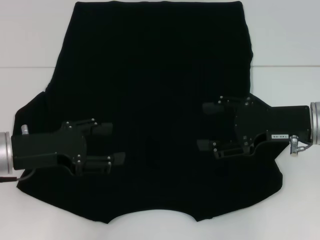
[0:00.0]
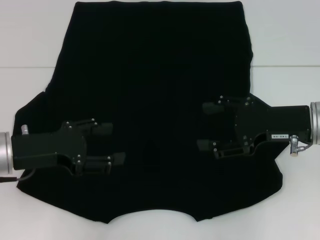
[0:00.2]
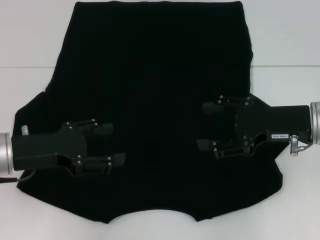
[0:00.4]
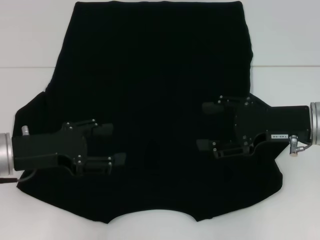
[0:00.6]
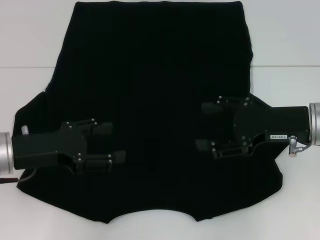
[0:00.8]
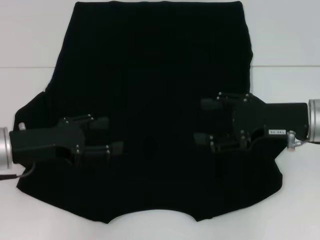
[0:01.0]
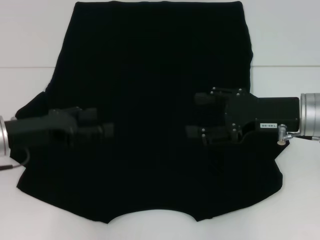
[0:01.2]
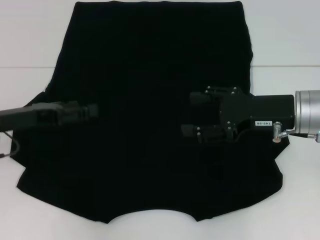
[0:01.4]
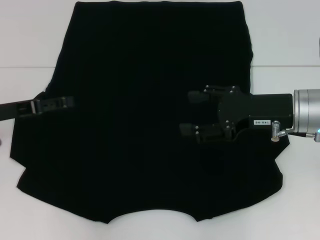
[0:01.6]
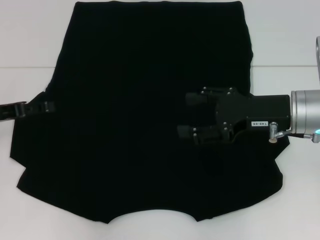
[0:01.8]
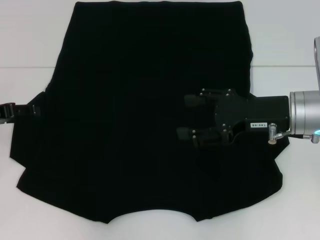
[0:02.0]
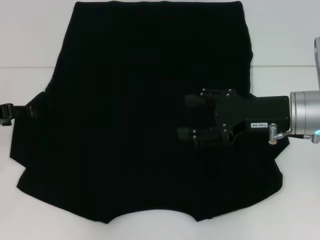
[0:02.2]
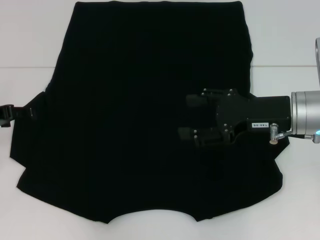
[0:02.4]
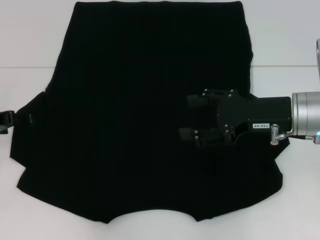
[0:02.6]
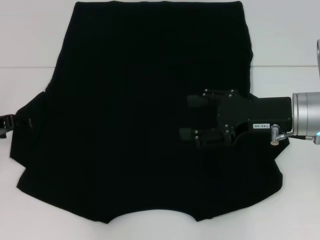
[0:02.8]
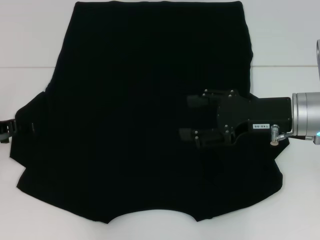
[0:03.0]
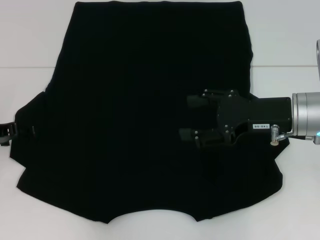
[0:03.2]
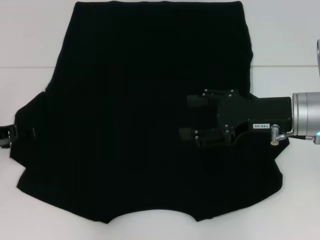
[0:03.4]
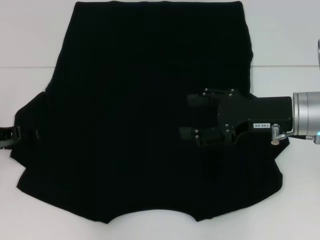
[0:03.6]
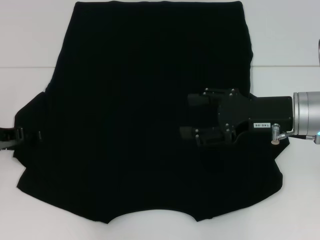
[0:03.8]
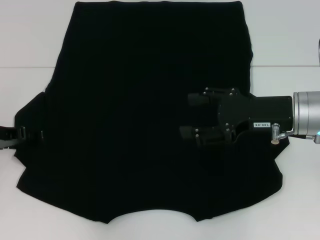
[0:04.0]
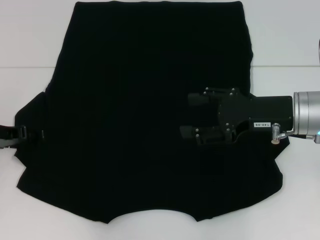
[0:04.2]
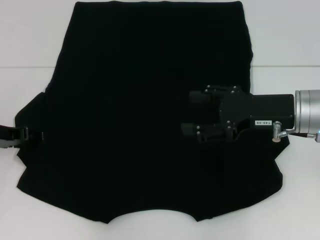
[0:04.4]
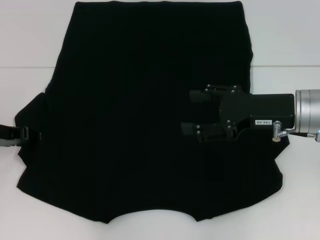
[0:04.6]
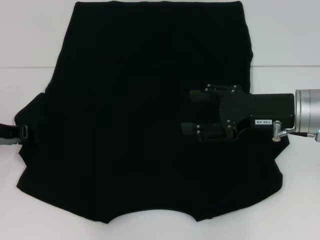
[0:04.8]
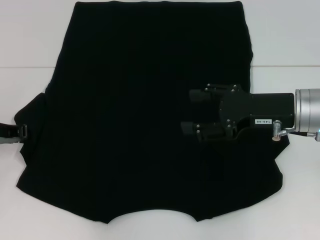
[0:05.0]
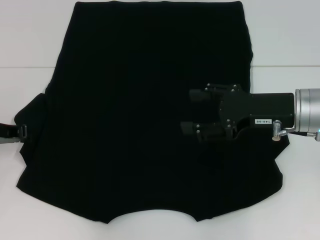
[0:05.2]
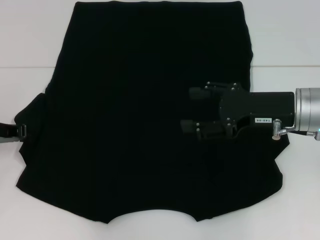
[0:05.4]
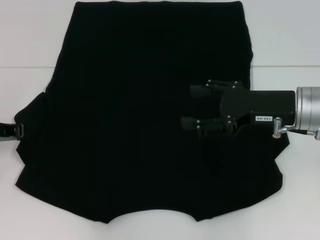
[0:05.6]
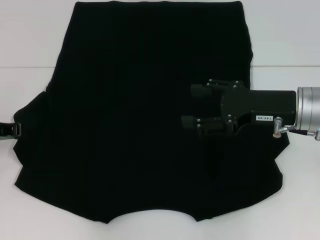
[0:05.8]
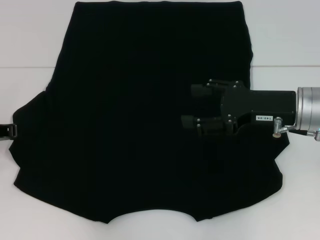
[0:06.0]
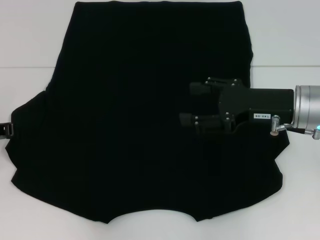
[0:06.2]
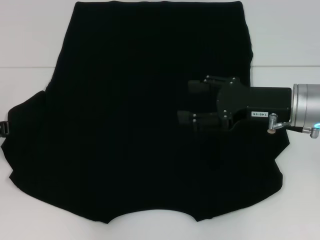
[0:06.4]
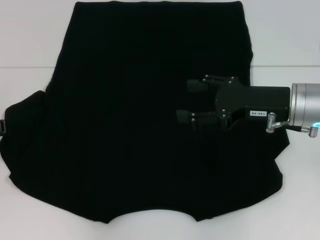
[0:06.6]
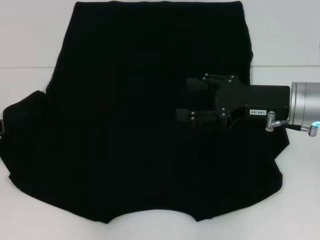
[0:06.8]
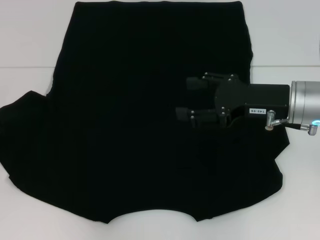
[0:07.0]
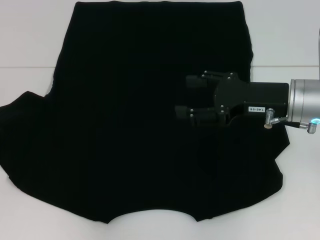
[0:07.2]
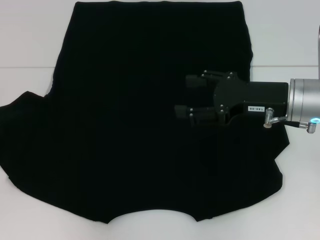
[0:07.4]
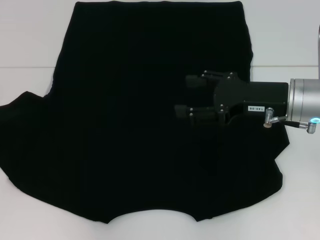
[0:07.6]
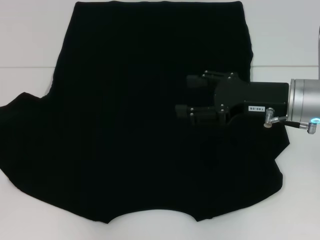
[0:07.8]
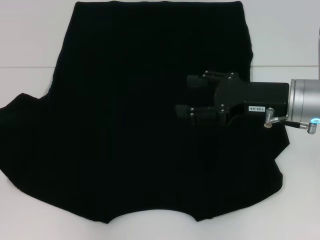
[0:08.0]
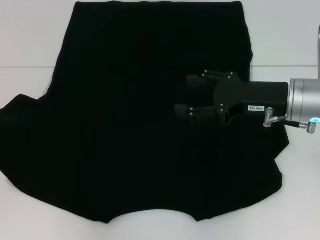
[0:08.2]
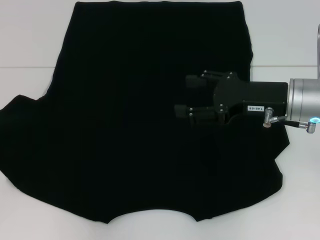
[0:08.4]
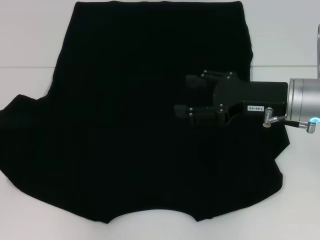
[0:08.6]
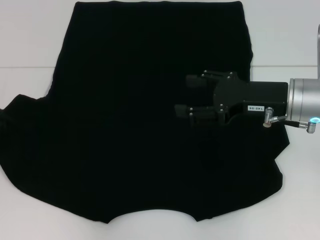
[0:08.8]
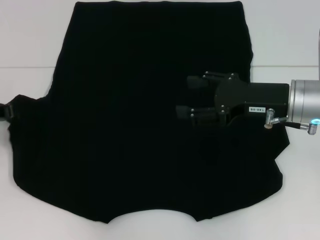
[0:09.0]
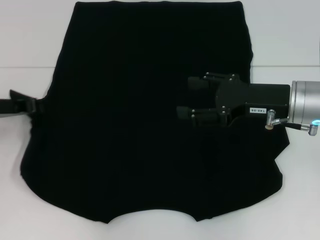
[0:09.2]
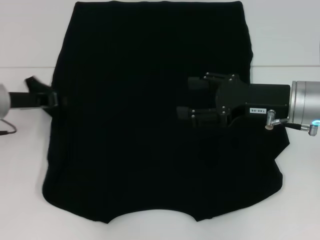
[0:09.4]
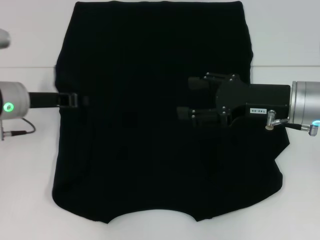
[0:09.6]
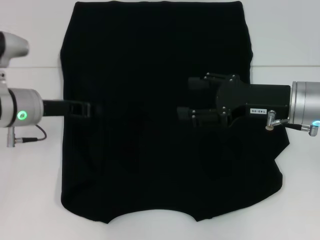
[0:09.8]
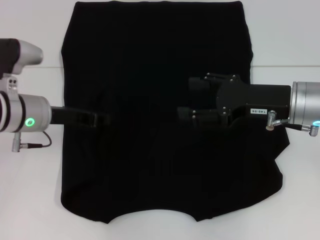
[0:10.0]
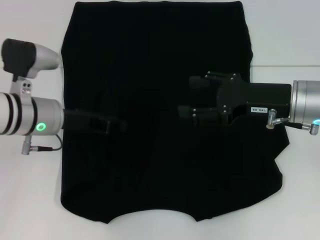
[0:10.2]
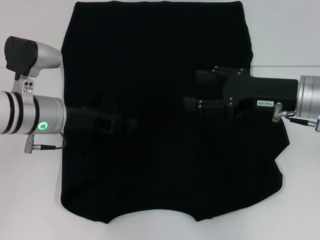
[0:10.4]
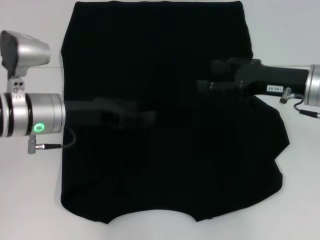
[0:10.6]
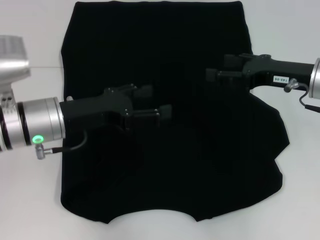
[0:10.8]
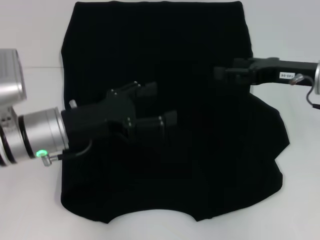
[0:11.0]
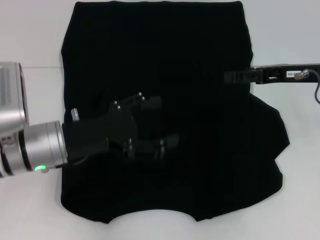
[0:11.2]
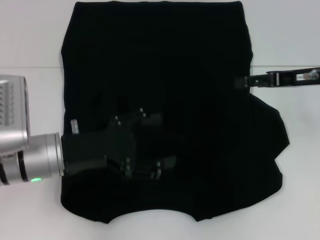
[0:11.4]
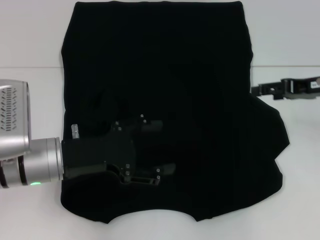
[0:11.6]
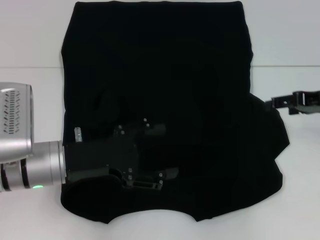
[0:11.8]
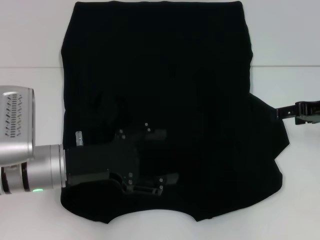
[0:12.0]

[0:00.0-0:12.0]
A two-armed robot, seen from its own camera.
Step, 0:00.0 to 0:10.4: Fold the bottom left sleeve with your left hand.
0:00.0 to 0:01.6: The left gripper is displaced to the left by some 5 cm.
0:03.0 to 0:04.4: There are only small adjustments of the grippers.
0:04.4 to 0:06.0: The left gripper closes.
0:06.0 to 0:09.0: The grippers make only small movements.
0:09.0 to 0:10.4: The left gripper travels to the right by approximately 15 cm, and opens up.
0:10.4 to 0:12.0: The left gripper moves backward, roughly 10 cm, and opens; the right gripper travels to the right by approximately 10 cm.

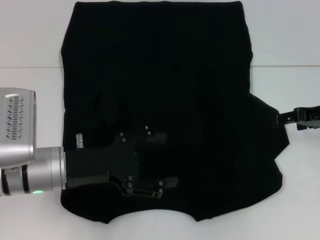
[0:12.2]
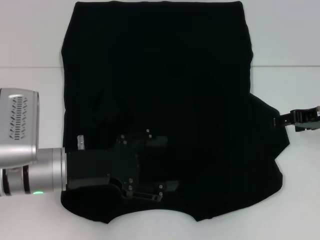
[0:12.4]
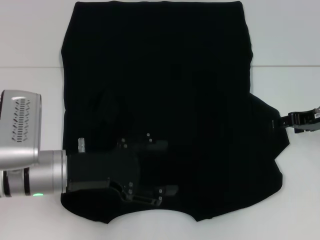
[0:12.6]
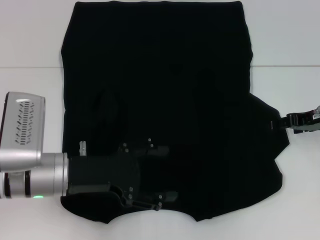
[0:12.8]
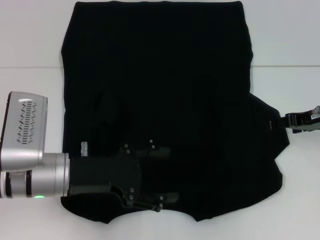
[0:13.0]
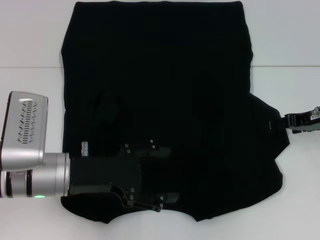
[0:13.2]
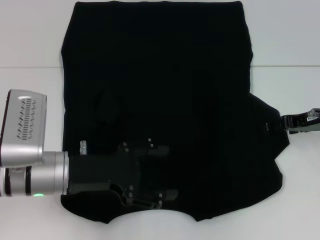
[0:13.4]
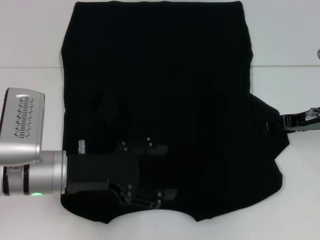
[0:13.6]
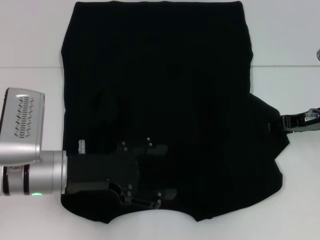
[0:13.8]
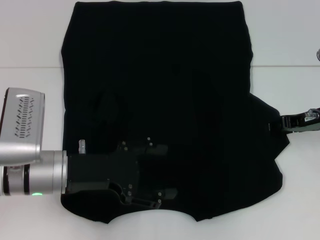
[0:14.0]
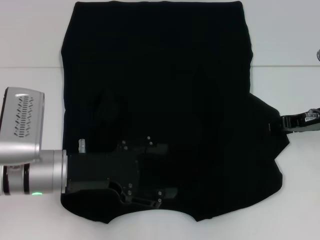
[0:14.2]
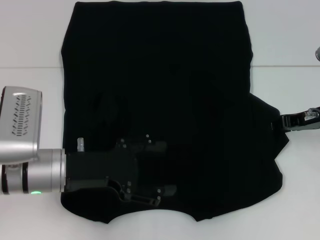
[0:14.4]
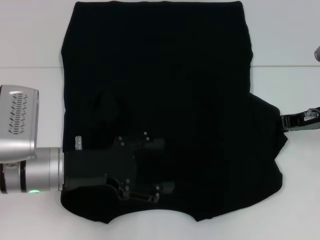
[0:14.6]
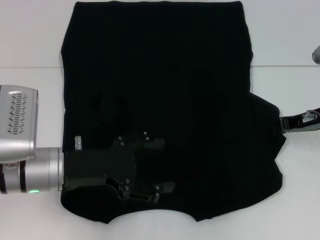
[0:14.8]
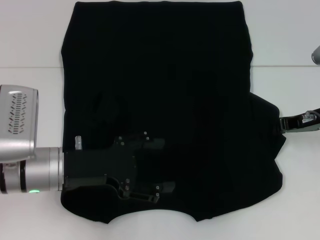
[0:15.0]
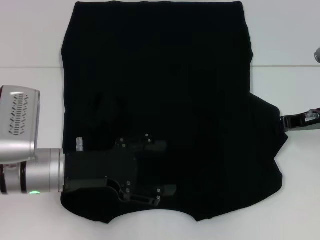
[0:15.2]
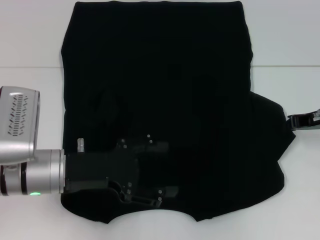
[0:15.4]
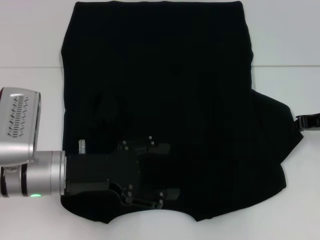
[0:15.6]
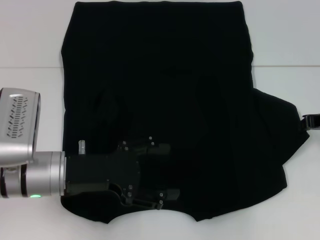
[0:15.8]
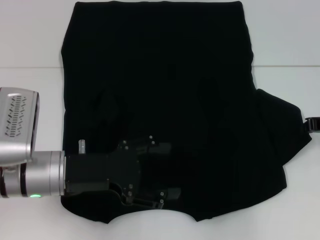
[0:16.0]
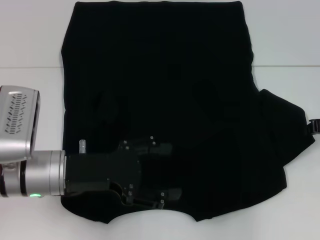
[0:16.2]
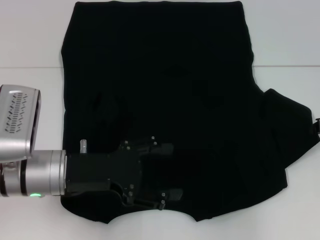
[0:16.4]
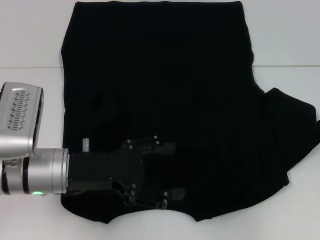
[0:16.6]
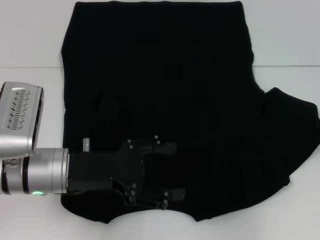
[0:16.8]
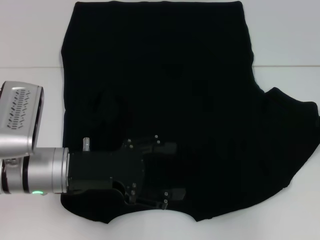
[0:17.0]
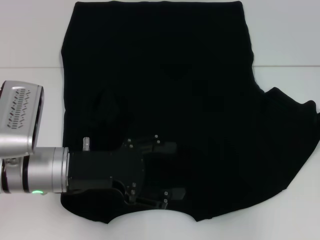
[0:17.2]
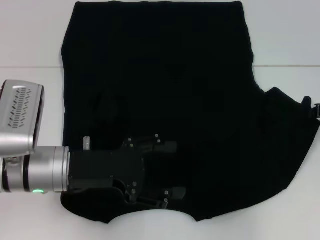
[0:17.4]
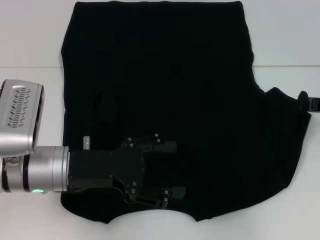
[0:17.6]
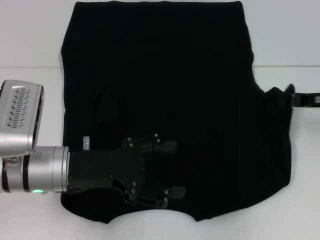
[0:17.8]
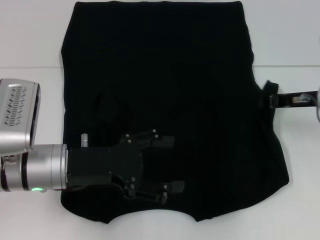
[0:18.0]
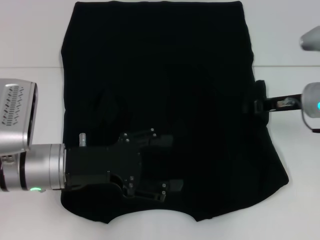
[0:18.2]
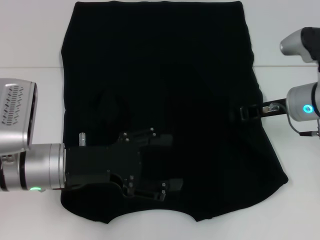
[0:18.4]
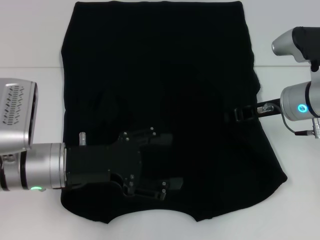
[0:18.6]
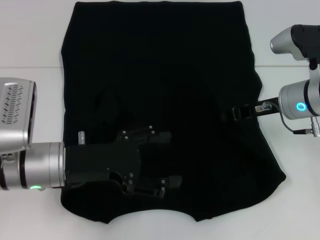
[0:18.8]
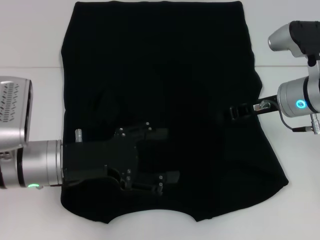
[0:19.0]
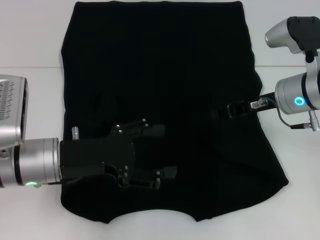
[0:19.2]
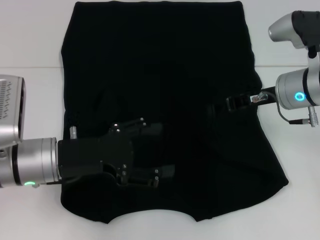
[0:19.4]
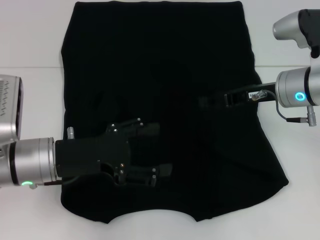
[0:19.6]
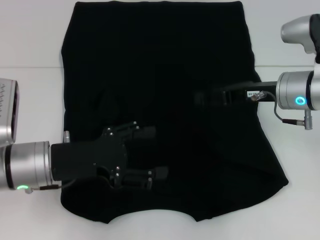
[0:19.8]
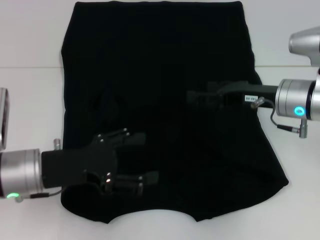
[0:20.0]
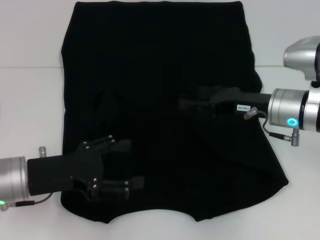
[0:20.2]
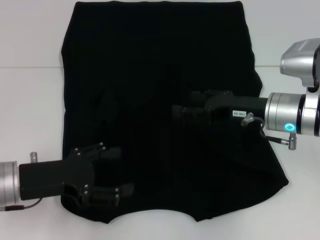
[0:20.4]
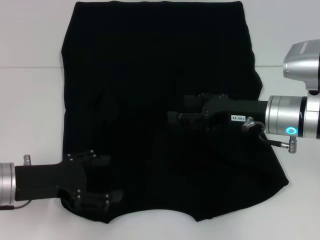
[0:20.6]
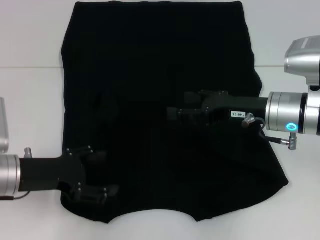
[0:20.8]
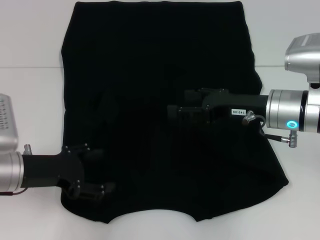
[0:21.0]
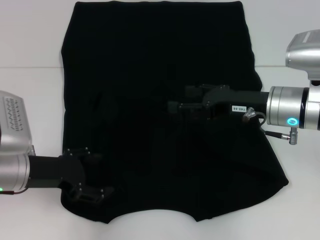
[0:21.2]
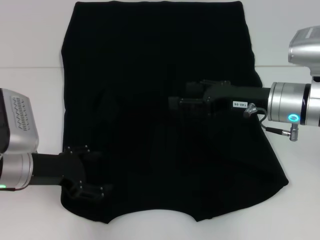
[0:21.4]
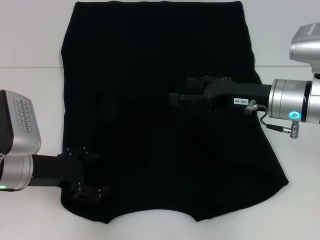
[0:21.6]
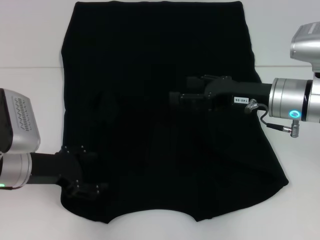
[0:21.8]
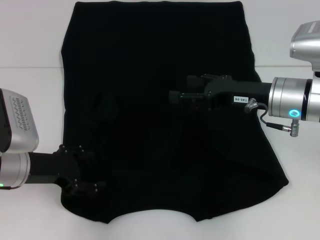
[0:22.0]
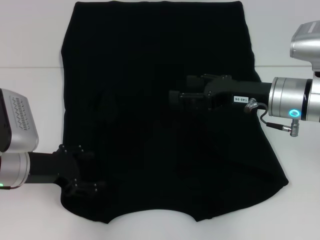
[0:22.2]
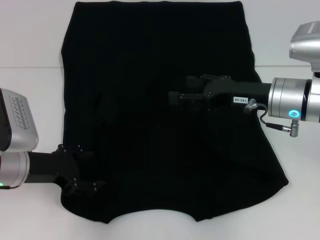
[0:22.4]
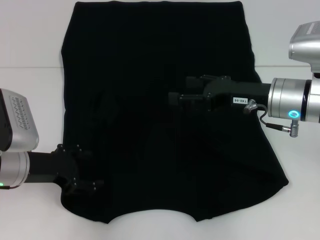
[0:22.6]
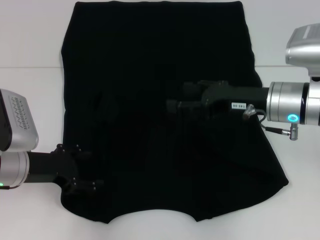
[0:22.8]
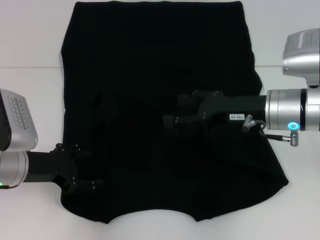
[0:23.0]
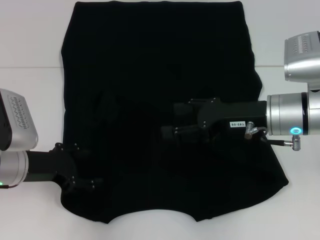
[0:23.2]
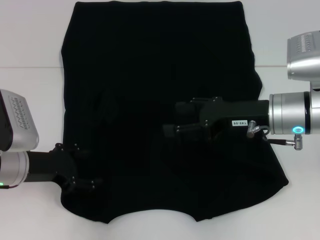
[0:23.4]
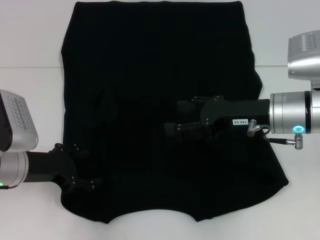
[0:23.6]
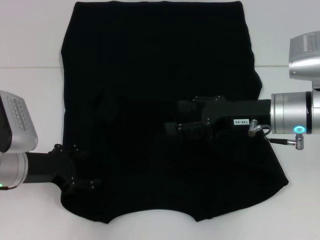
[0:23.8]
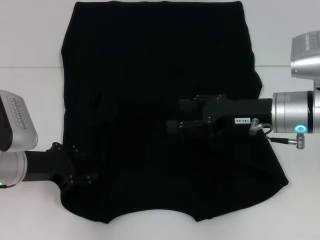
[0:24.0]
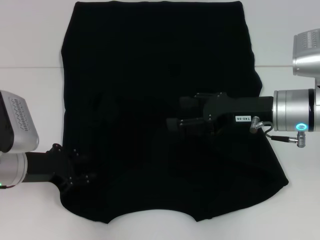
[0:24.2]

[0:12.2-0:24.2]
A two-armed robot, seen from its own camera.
Step, 0:12.2 to 0:19.0: Fold the bottom right sleeve with your right hand.
0:12.2 to 0:13.8: The grippers move only a little.
0:13.8 to 0:15.2: The right gripper closes its fingers.
0:15.2 to 0:16.6: The right gripper shifts some 5 cm to the right.
0:16.6 to 0:18.2: The right gripper heads to the left, covering roughly 10 cm.
0:18.2 to 0:19.8: The right gripper opens its fingers.
0:19.8 to 0:21.2: The right gripper opens its fingers.
0:21.2 to 0:24.2: The grippers make only small movements.
